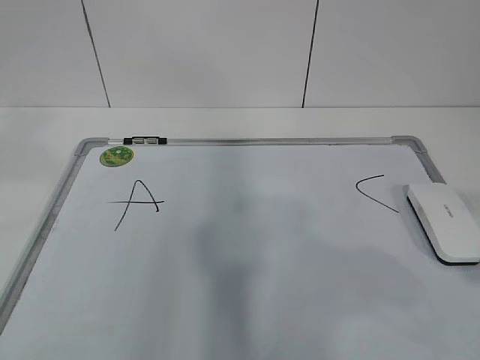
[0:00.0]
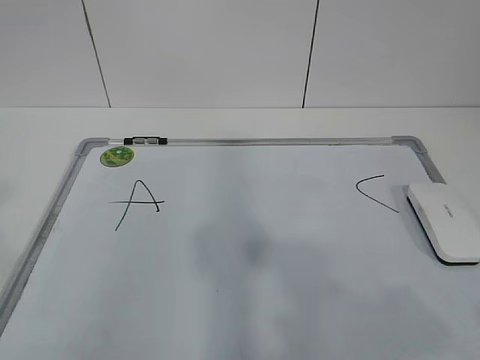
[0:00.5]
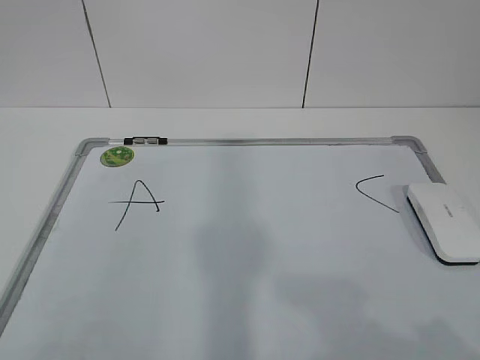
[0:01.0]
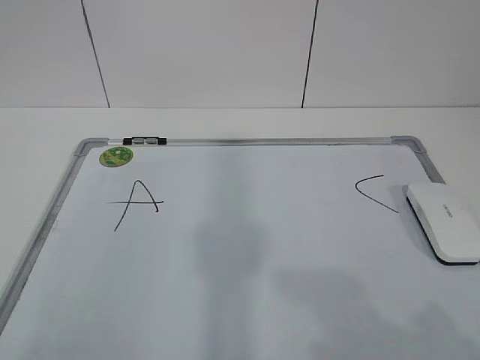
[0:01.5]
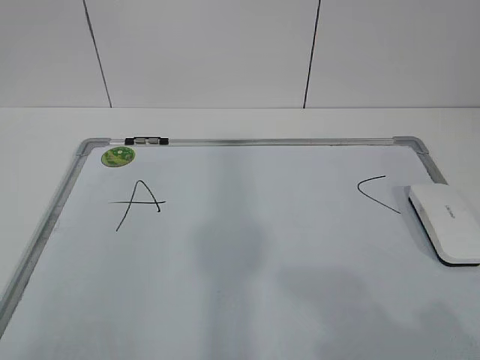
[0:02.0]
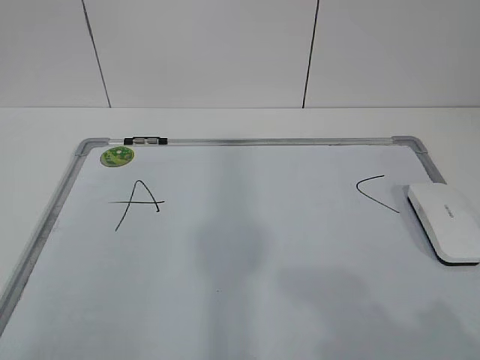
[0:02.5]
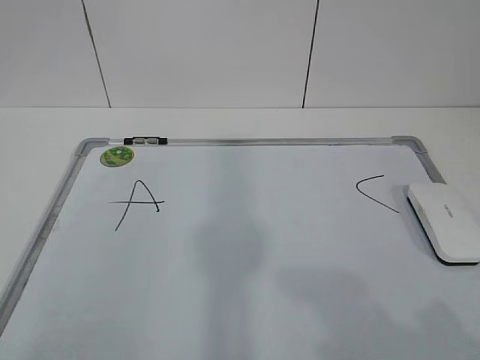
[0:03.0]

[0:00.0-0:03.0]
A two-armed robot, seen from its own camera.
Task of the whole recording: pick up the eraser on the blackboard and erase the letter "B".
0:00.0 to 0:01.5: The left gripper travels downward and backward by about 20 cm. The right gripper heads downward and backward, covering roughly 10 cm.
0:01.5 to 0:03.0: Both grippers stay put.
